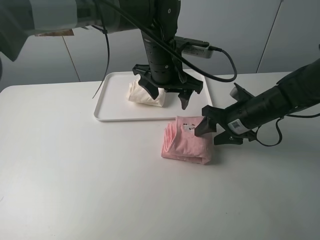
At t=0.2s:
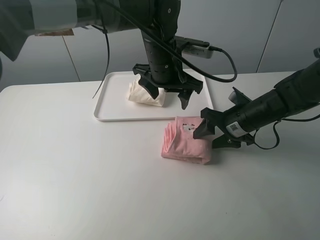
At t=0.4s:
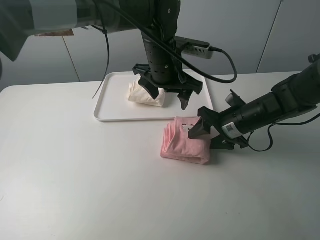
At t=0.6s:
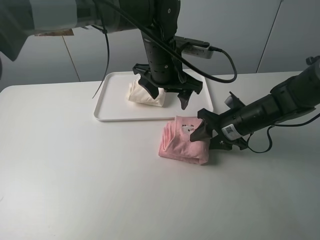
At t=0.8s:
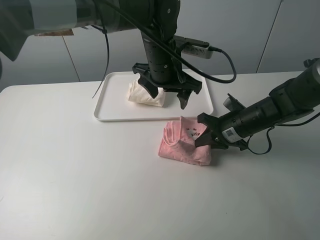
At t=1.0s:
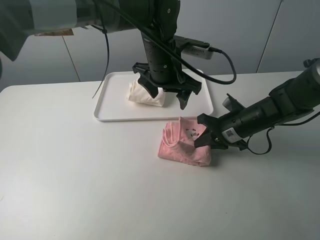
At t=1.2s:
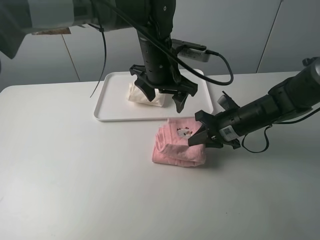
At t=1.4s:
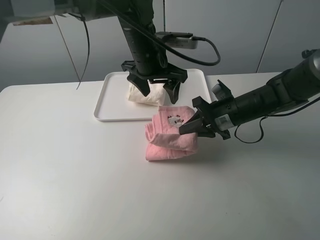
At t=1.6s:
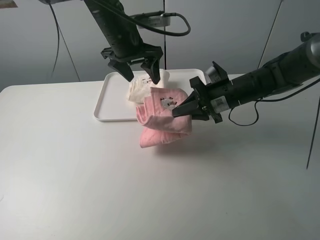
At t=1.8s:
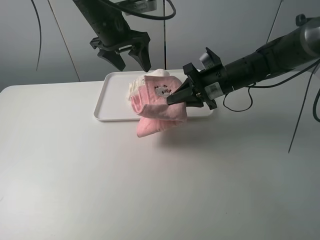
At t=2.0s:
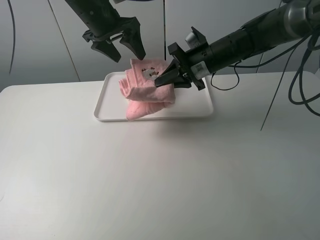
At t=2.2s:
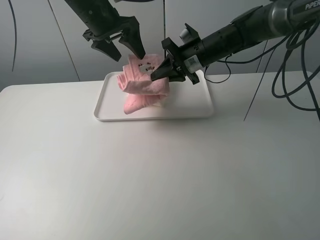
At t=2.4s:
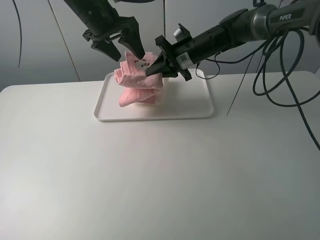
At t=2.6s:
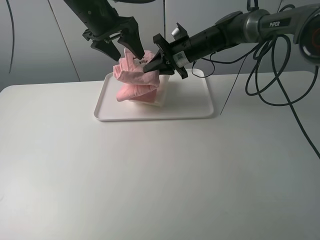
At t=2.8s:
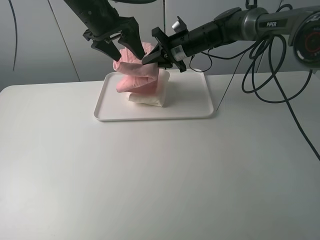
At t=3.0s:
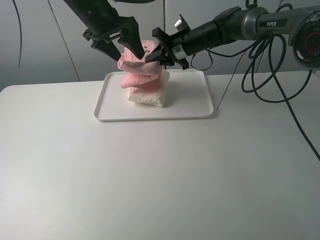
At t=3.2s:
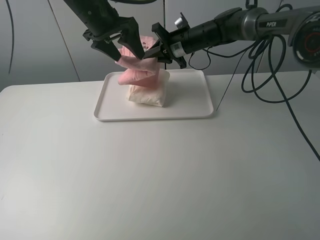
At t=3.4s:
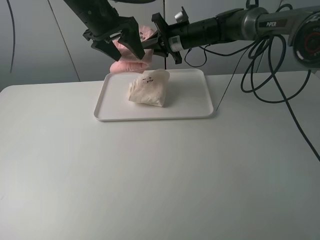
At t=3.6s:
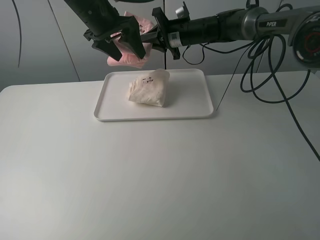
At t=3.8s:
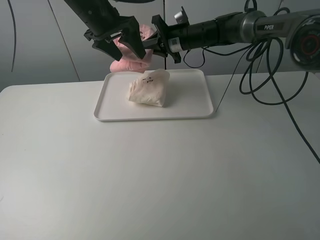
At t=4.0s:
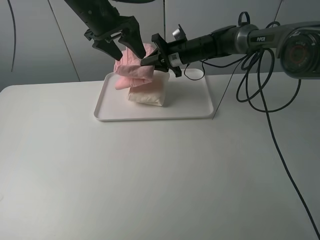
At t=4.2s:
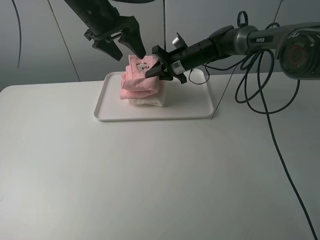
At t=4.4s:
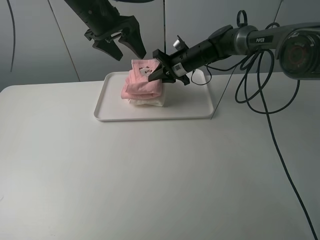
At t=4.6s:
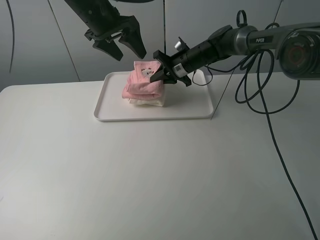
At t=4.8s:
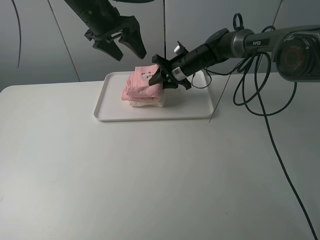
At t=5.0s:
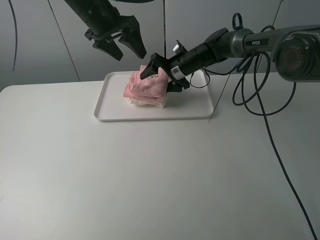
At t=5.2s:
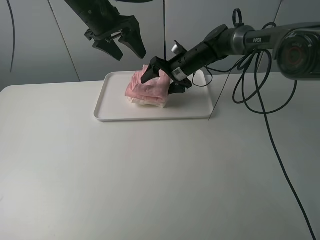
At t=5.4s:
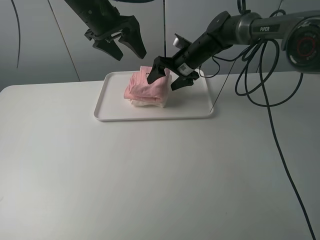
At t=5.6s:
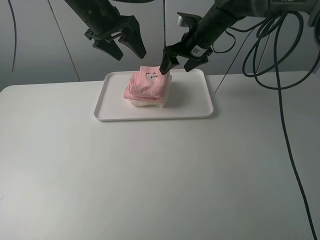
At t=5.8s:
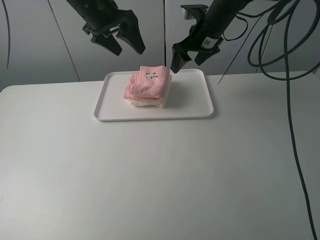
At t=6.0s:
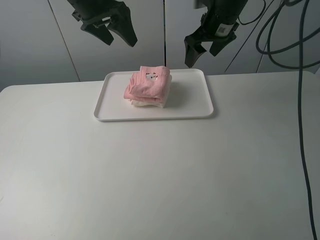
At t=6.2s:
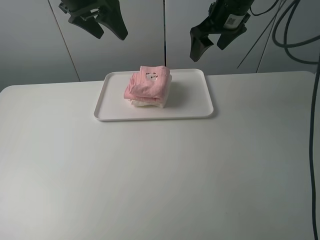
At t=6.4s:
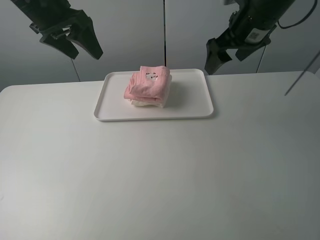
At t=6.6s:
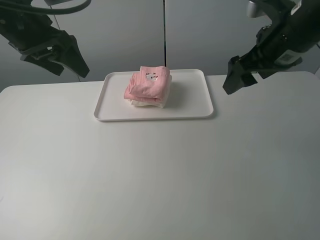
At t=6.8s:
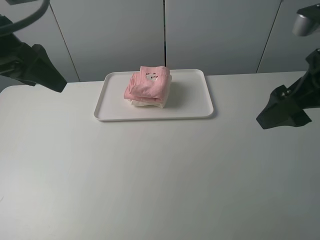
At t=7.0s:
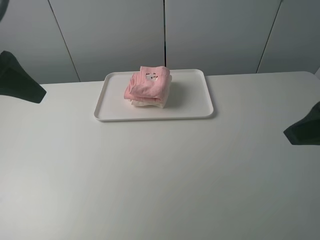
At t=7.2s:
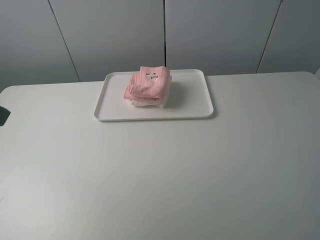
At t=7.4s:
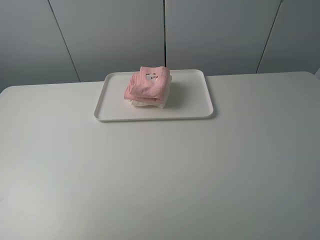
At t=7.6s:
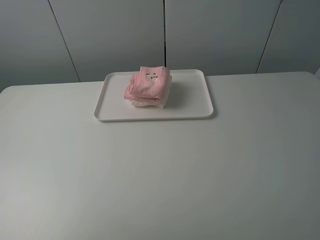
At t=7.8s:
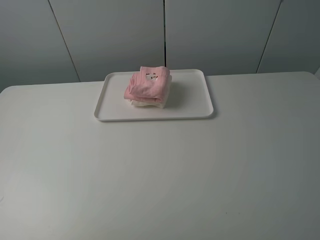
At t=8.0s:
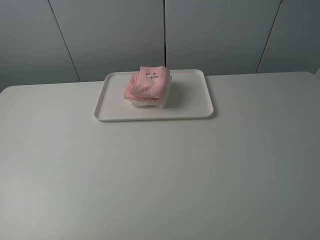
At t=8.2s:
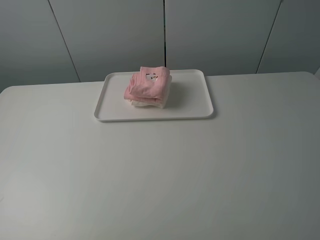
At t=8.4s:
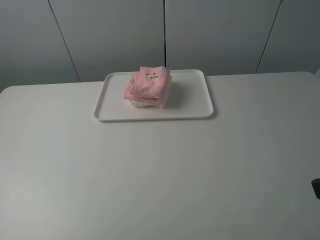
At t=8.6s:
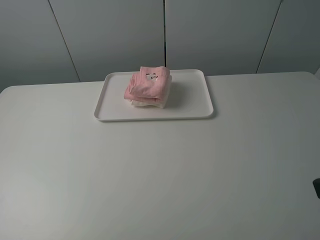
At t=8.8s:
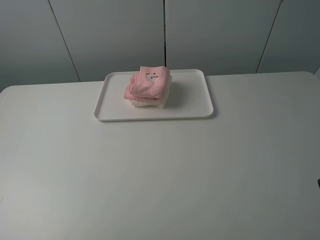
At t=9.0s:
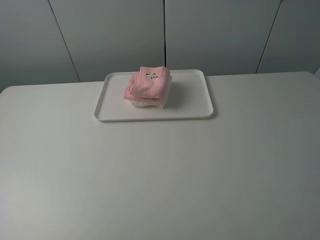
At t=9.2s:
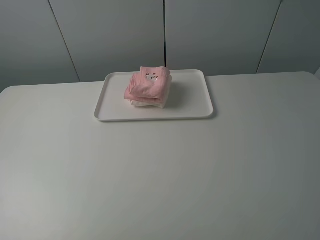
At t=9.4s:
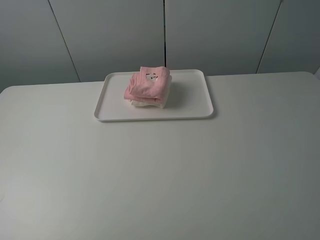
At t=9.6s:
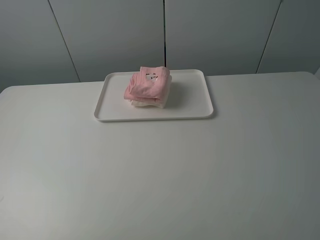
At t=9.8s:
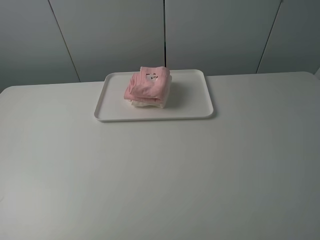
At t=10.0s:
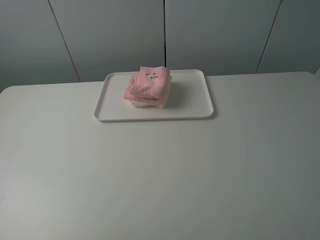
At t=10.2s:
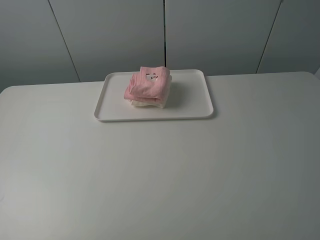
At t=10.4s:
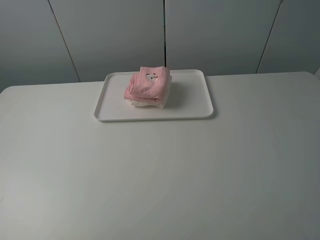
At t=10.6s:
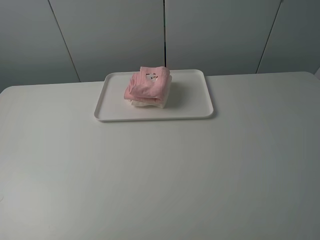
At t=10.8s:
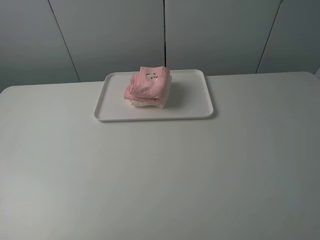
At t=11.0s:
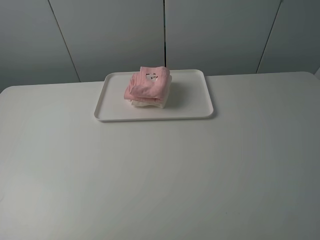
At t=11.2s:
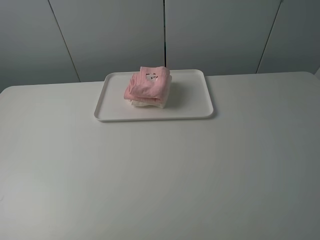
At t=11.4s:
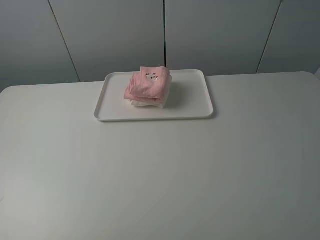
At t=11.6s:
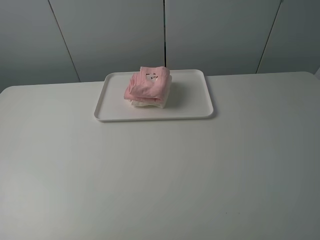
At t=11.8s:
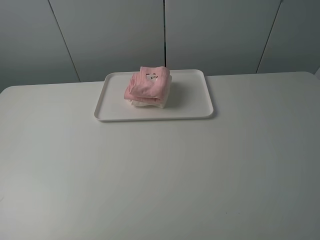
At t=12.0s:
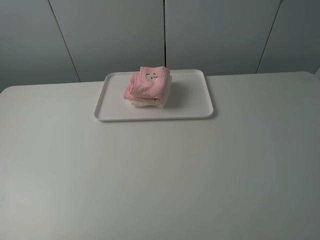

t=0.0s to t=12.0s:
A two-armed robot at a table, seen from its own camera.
Task of the whole recording: fold one of the towels by two grippers and place it on the tray,then fold another towel by two grippers and place it on the folded towel.
Step, t=1.0s to t=5.2s: Place the pink towel on the white towel with the right gripper.
t=0.0s to t=1.6s: The left gripper heads to the left and forward, covering about 10 cm. The right gripper ends up approximately 5 cm from where it was, and closes.
t=1.6s to t=3.0s: The left gripper moves about 5 cm; the right gripper is displaced forward and to the left by some 15 cm.
t=3.0s to t=4.4s: There are only small adjustments of the grippers.
t=4.4s to t=6.0s: The right gripper heads upward, covering some 15 cm, and opens.
t=6.0s to t=7.6s: The right gripper travels backward by about 40 cm. Meanwhile the left gripper shifts about 40 cm backward and to the left.
t=10.4s to t=12.0s: Both grippers stay put.
